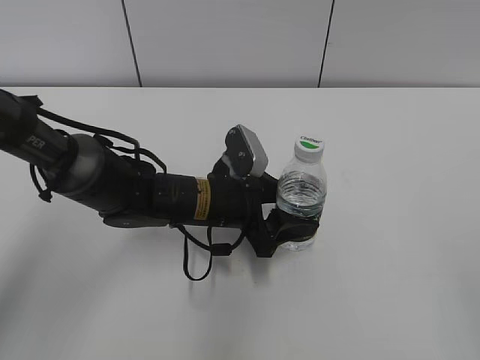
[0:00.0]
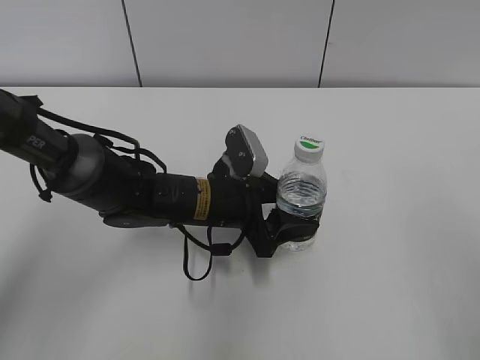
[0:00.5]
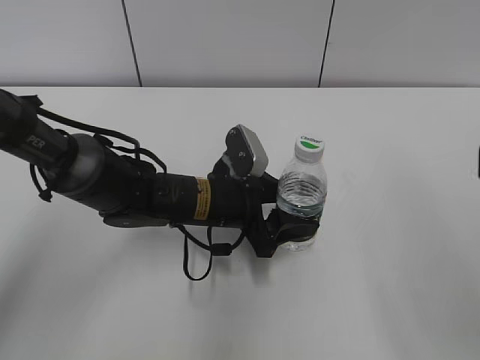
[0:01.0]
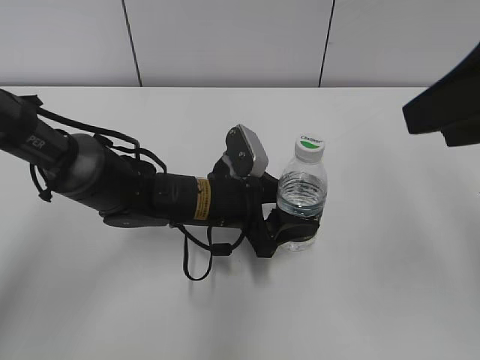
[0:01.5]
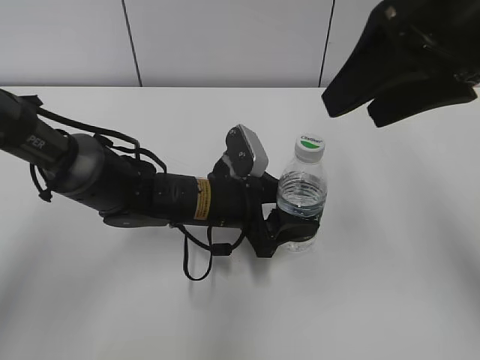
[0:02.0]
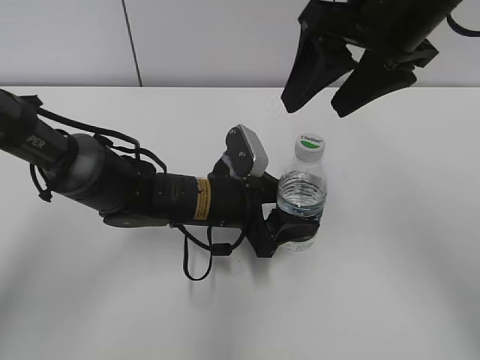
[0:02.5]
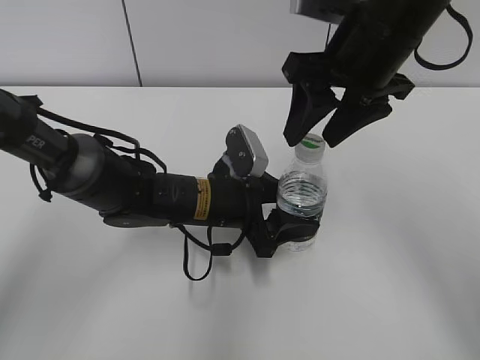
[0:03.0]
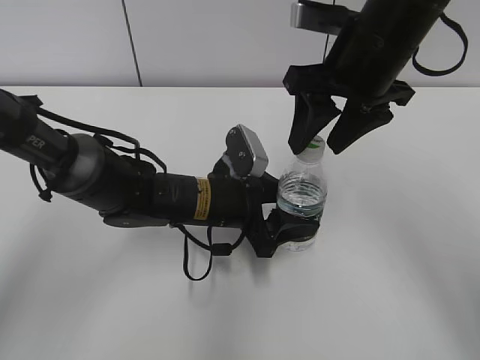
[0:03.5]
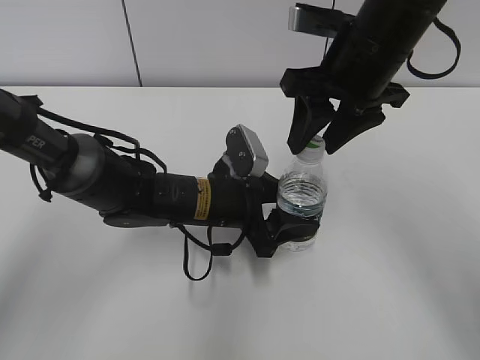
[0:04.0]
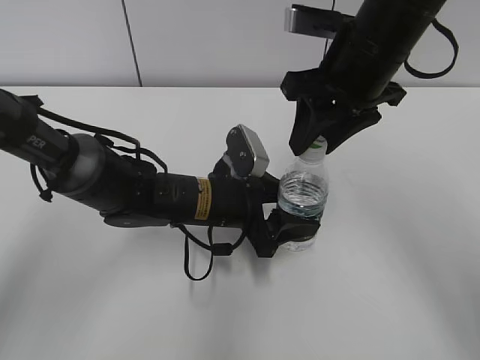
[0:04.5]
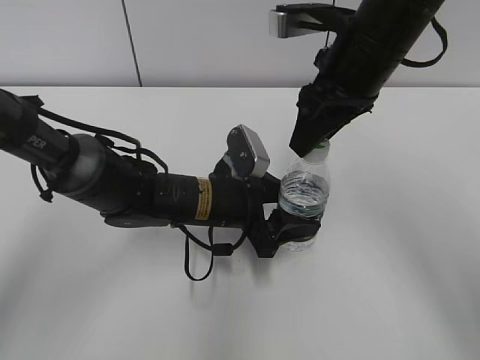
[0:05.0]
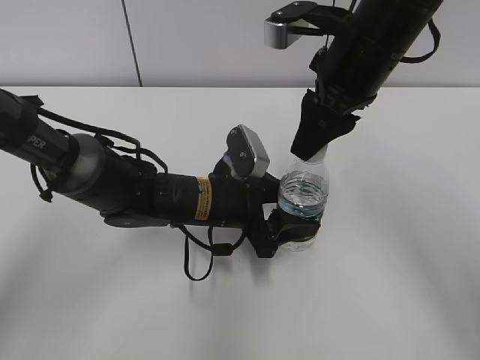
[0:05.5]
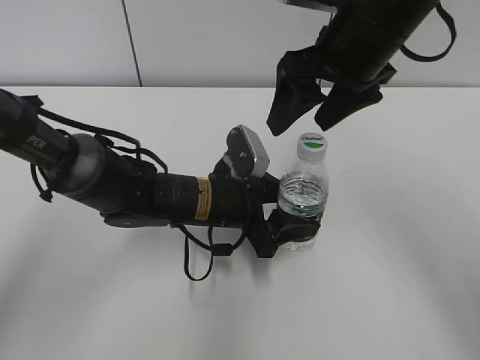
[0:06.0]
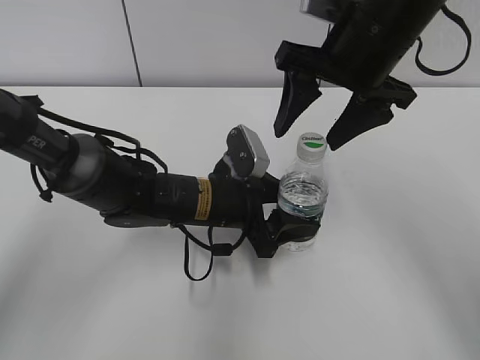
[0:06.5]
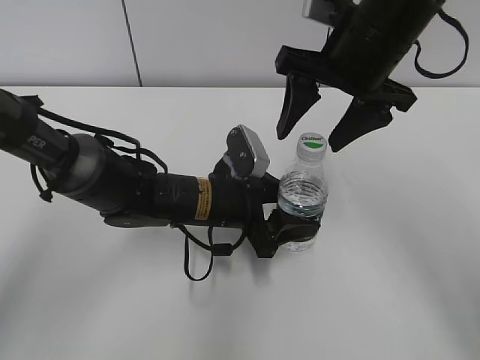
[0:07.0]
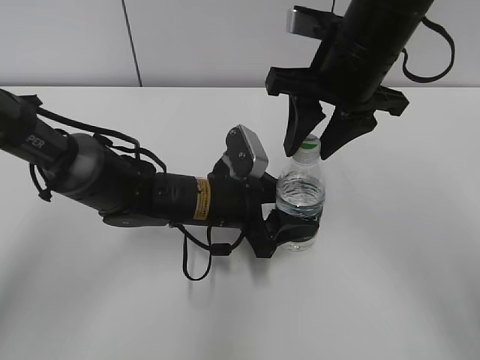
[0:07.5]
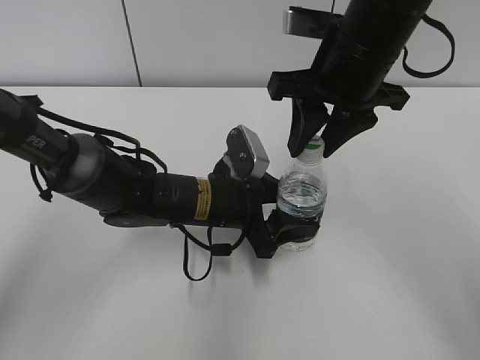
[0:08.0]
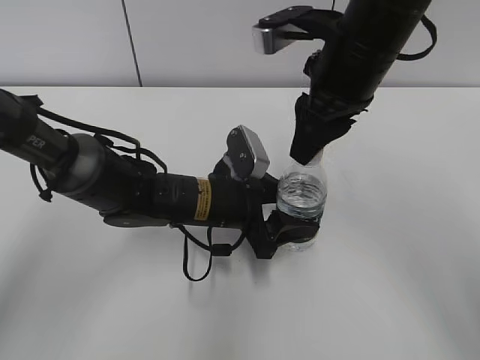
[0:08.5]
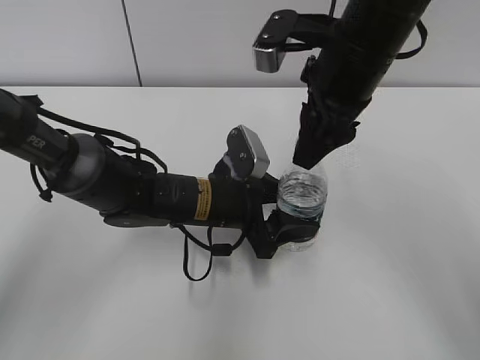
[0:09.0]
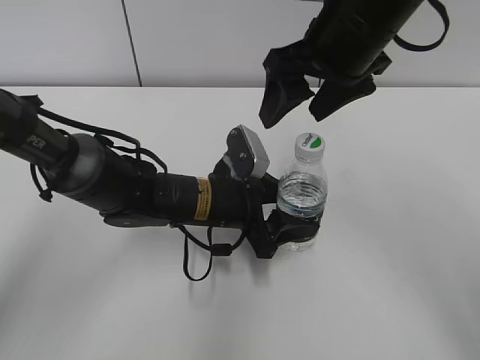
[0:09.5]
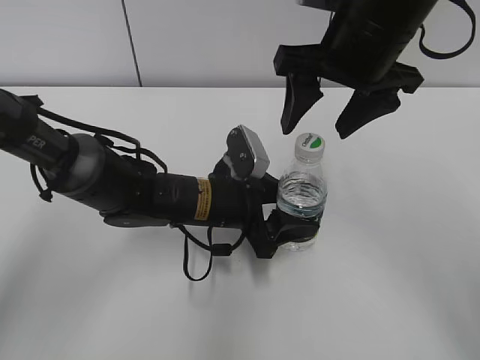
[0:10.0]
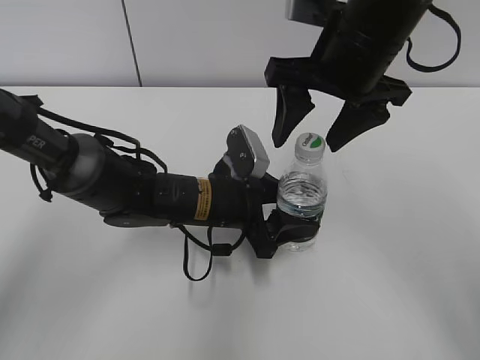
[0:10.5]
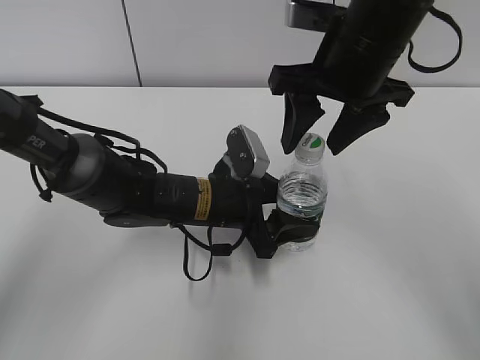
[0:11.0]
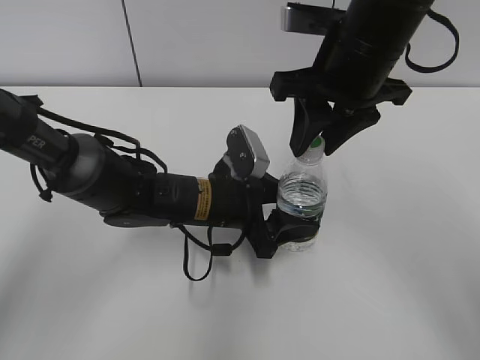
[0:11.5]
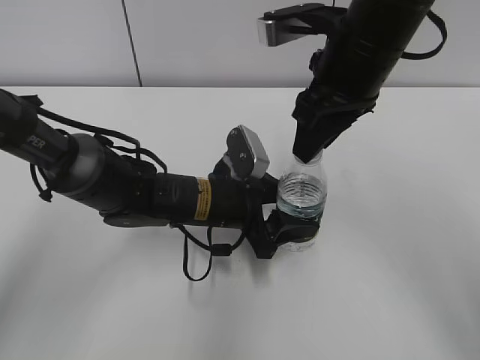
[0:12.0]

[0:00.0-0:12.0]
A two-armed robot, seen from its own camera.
0:00.0 to 0:02.0: The right gripper travels forward and to the left by approximately 30 cm, and opens up.
0:02.0 to 0:04.0: The right gripper goes roughly 10 cm forward and downward, and closes up.
0:04.0 to 0:06.0: The right gripper opens its fingers.
0:06.0 to 0:08.0: The right gripper closes.
0:08.0 to 0:10.0: The right gripper opens.
0:10.0 to 0:12.0: The right gripper closes its fingers.

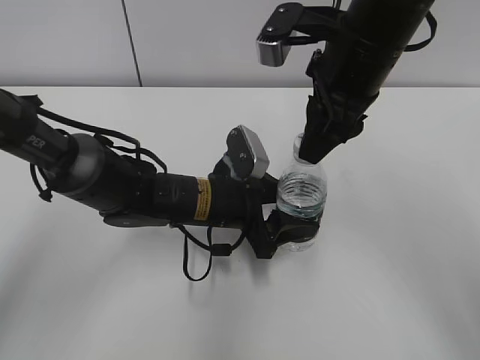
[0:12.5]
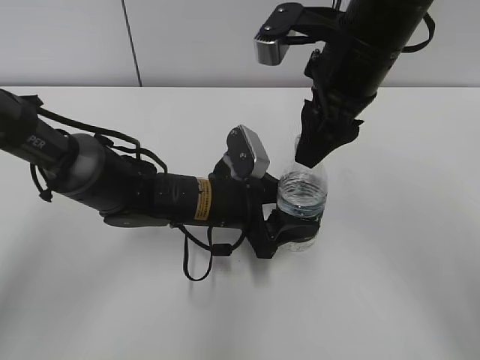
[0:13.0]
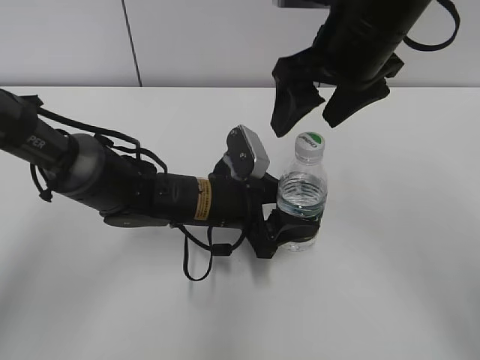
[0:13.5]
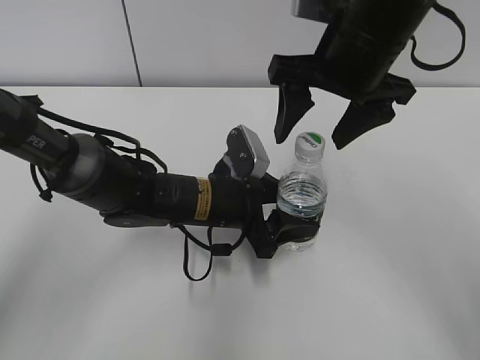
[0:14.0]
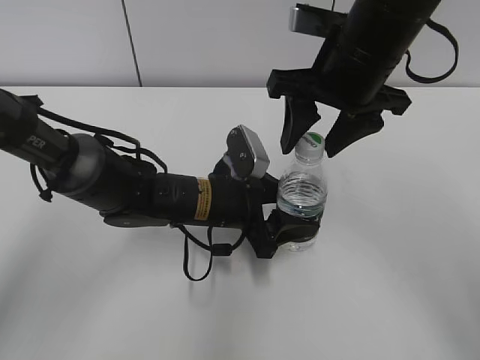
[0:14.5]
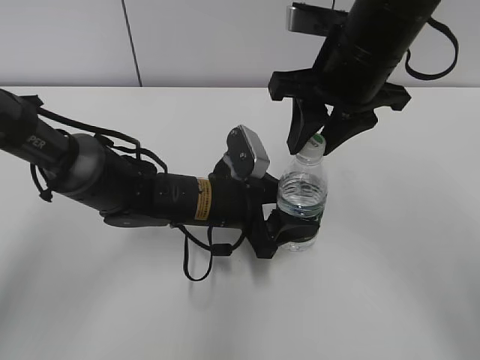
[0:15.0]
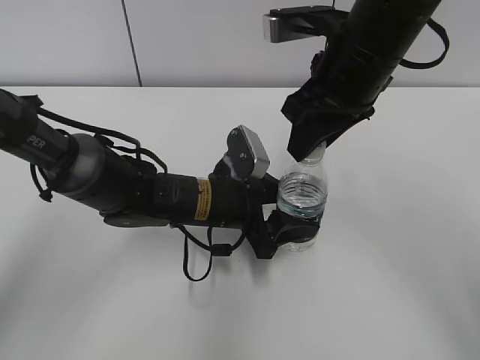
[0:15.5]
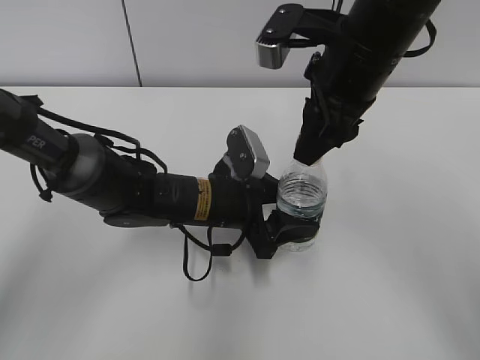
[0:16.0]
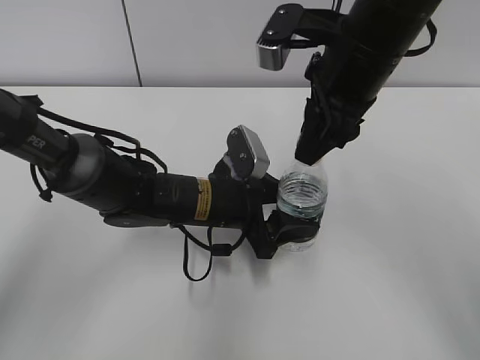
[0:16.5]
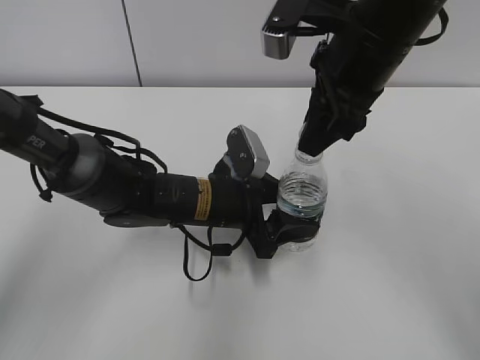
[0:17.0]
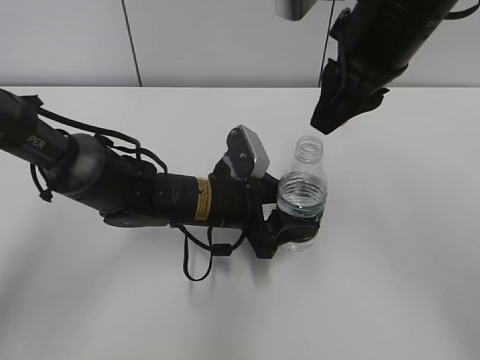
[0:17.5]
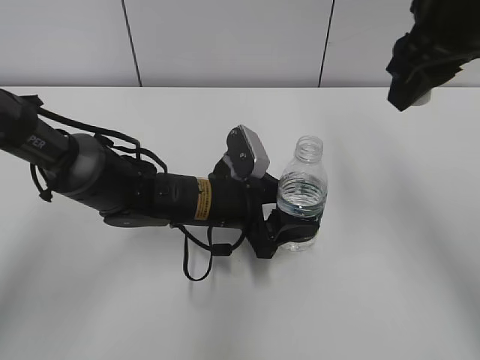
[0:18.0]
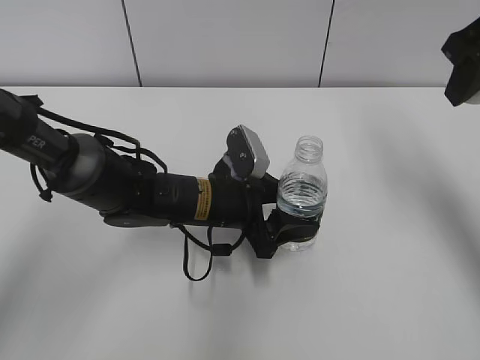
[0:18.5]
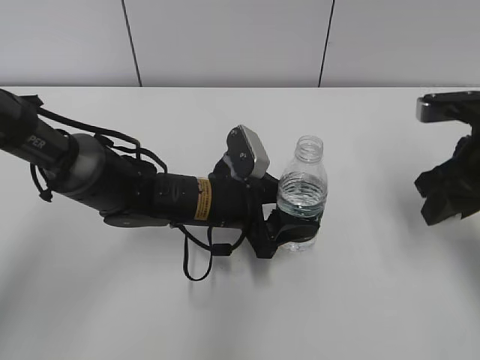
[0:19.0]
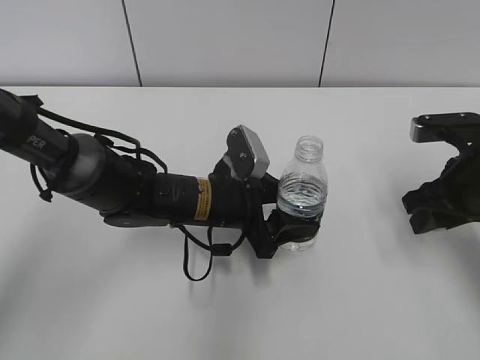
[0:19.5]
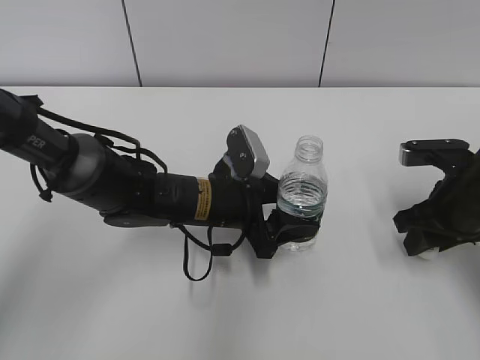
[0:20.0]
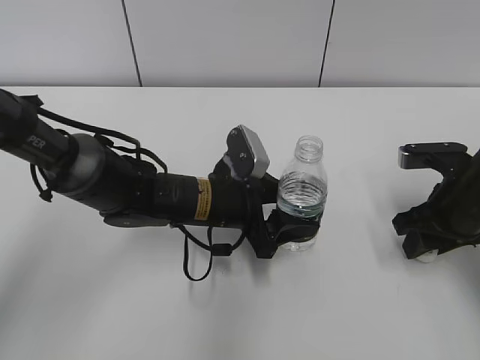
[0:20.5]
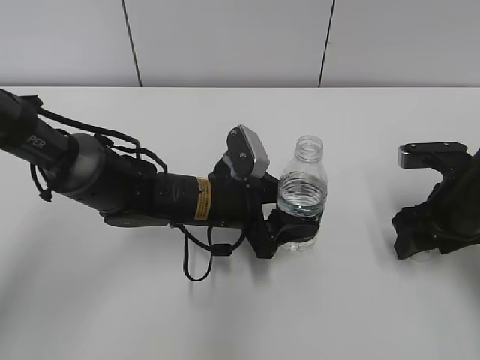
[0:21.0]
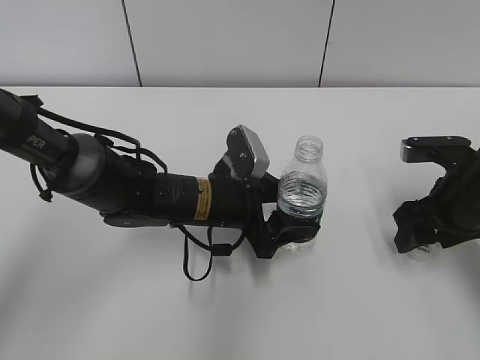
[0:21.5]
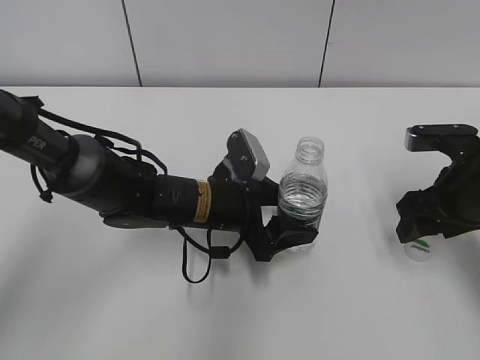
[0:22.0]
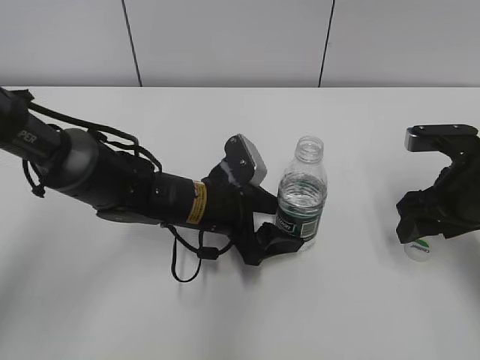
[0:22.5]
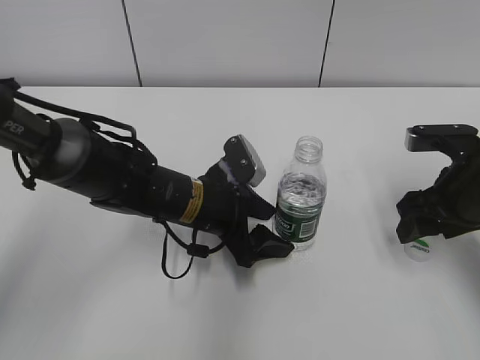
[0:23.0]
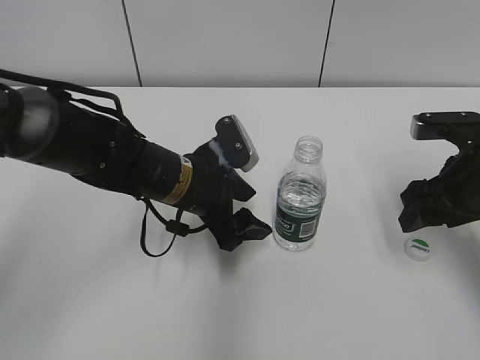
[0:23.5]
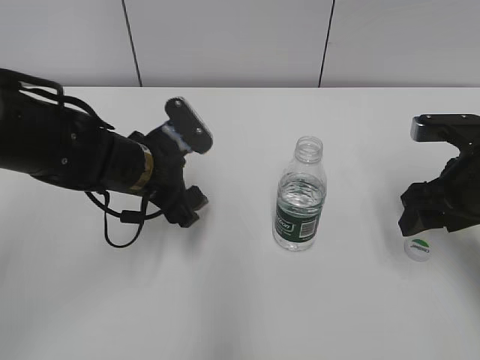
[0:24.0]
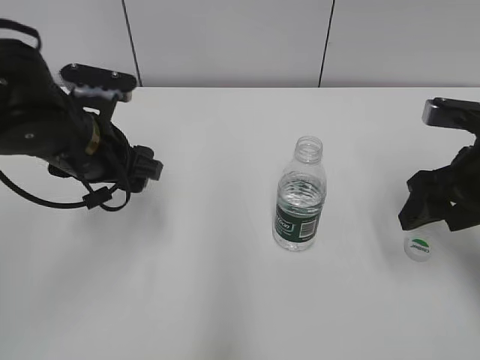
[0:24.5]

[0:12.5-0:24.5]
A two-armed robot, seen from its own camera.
Step, 0:12.5 to 0:17.0: Twist the bottle cap with the right hand.
Step, 0:17.5 to 0:22.0: Place the bottle cap on the table with the right hand.
Step, 0:22.5 to 0:23.0: Place the C'estbon with the left hand.
0:12.5 to 0:14.5: The right gripper opens up.
0:14.5 to 0:16.5: The right gripper closes up.
0:16.5 to 0:18.5: The right gripper heads to the right, covering roughly 15 cm.
0:18.5 to 0:20.5: The right gripper heads downward, covering about 20 cm.
0:20.5 to 0:22.5: The right gripper opens.
0:22.5 to 0:24.5: The left gripper shifts about 15 cm to the left and upward.

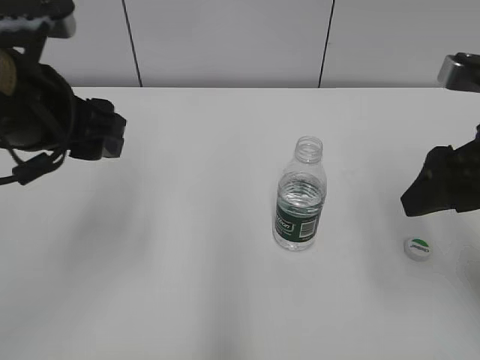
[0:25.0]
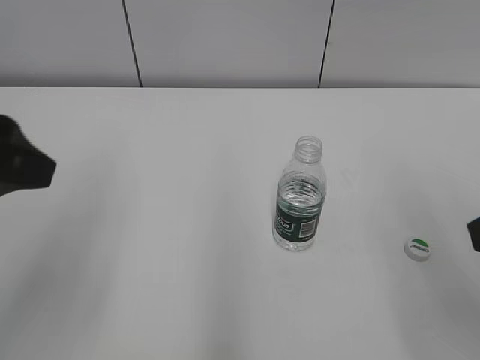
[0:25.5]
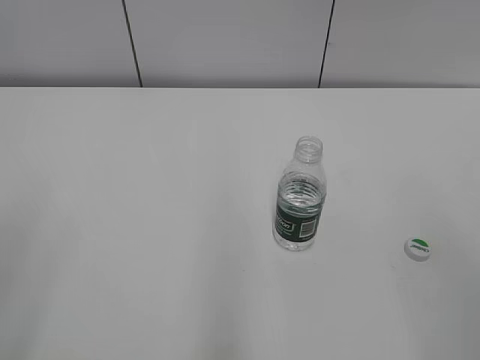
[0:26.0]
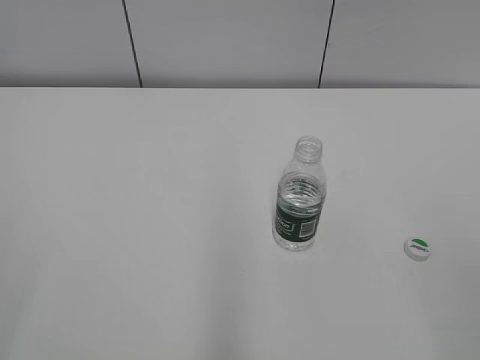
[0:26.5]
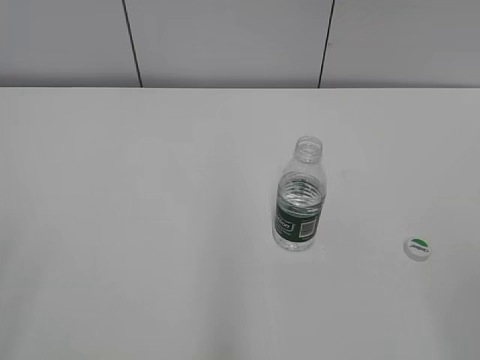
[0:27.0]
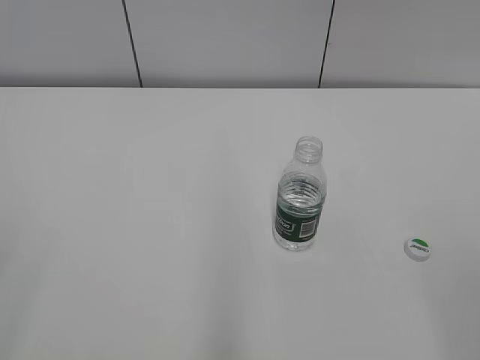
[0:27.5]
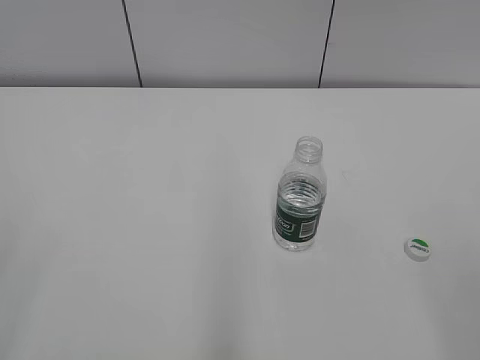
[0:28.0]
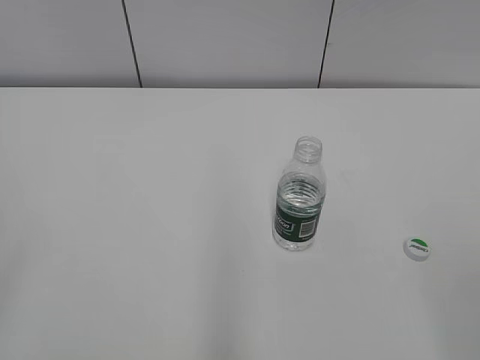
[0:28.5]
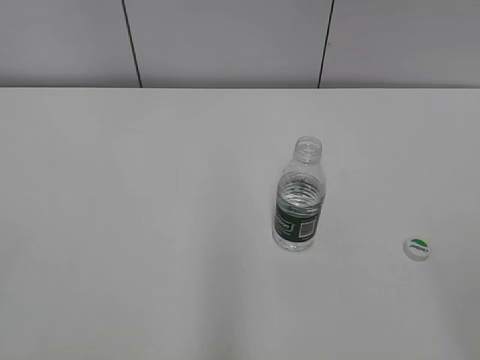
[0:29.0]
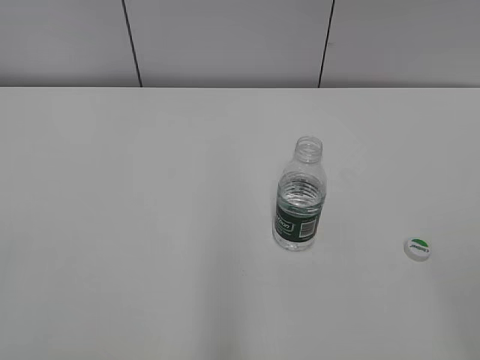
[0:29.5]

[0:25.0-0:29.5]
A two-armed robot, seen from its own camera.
0:25.0 to 0:27.0: The left gripper goes about 25 cm backward and to the left, while the right gripper goes approximately 25 cm backward.
